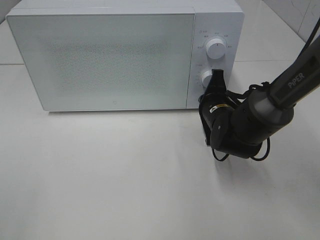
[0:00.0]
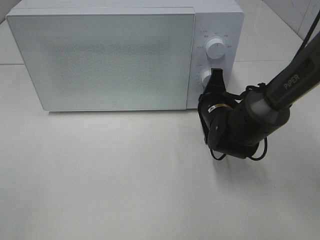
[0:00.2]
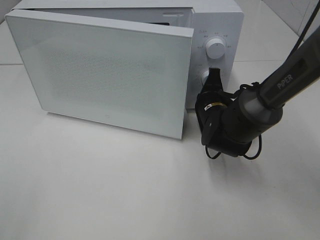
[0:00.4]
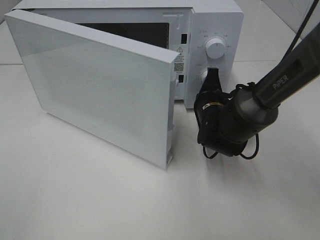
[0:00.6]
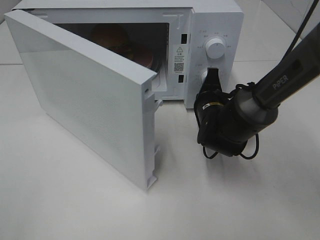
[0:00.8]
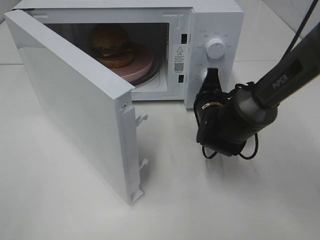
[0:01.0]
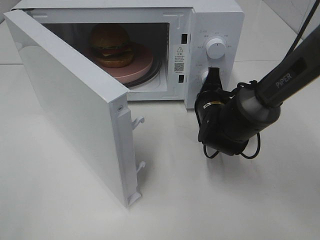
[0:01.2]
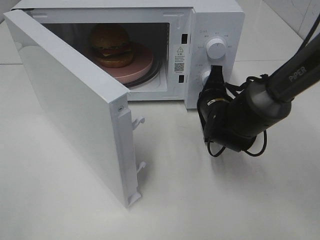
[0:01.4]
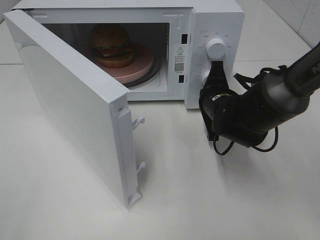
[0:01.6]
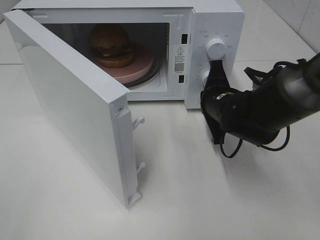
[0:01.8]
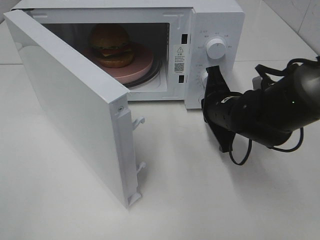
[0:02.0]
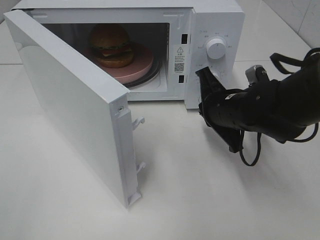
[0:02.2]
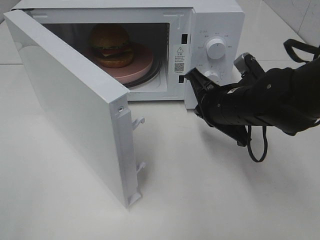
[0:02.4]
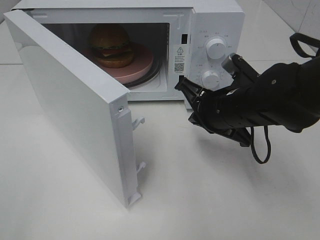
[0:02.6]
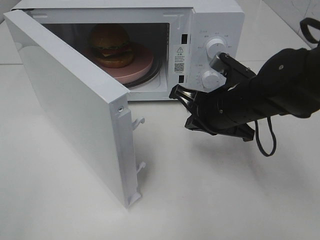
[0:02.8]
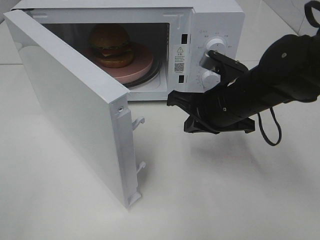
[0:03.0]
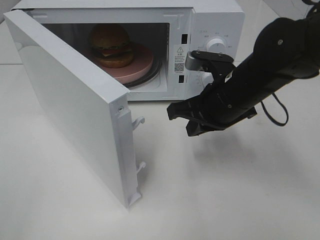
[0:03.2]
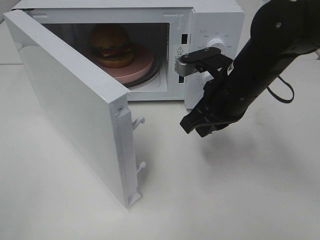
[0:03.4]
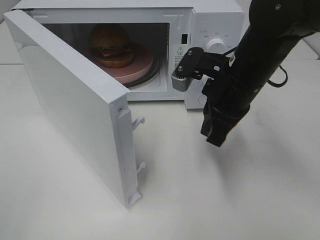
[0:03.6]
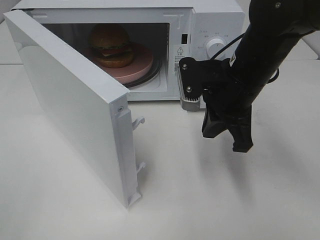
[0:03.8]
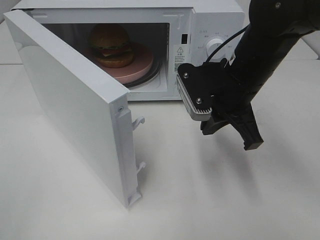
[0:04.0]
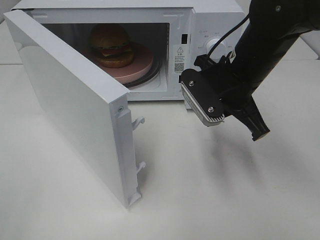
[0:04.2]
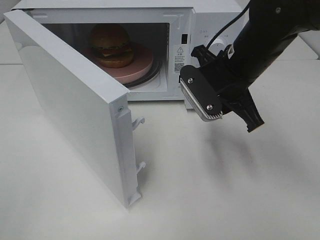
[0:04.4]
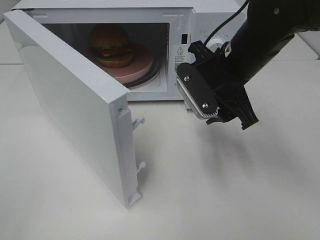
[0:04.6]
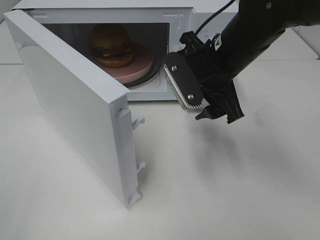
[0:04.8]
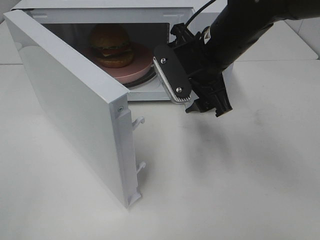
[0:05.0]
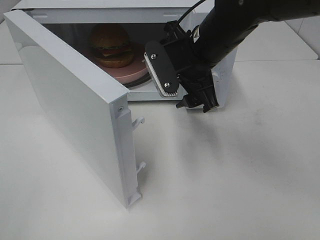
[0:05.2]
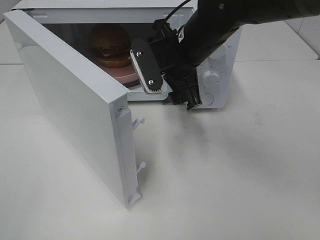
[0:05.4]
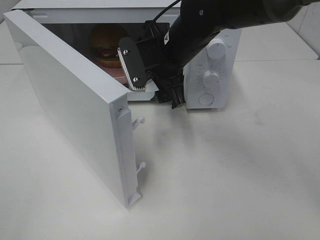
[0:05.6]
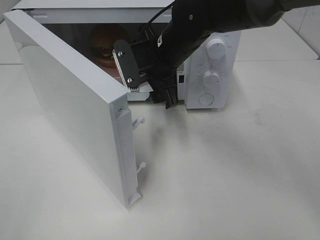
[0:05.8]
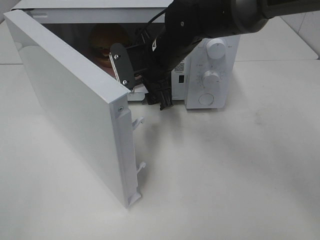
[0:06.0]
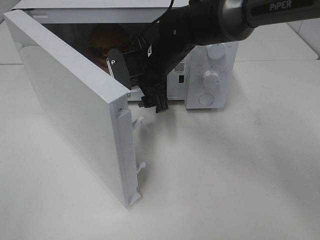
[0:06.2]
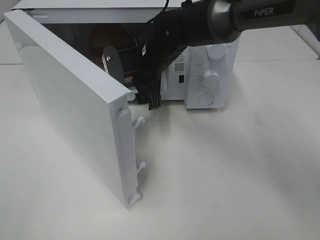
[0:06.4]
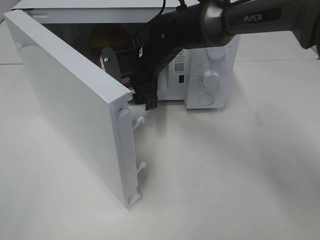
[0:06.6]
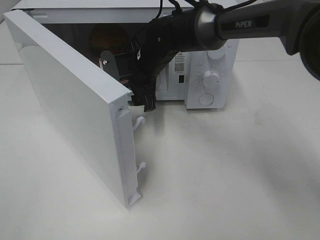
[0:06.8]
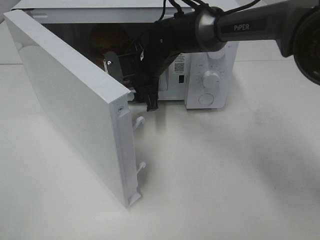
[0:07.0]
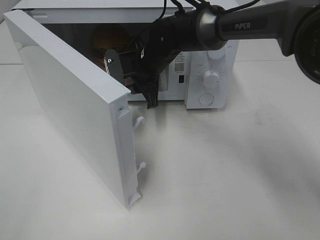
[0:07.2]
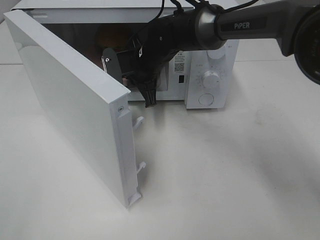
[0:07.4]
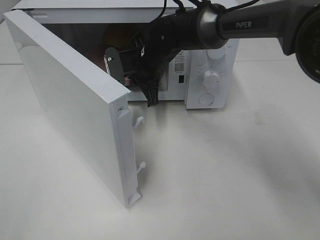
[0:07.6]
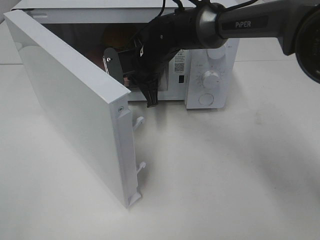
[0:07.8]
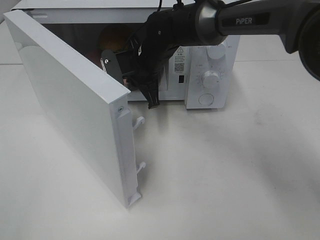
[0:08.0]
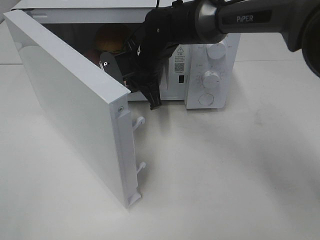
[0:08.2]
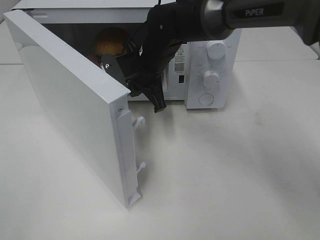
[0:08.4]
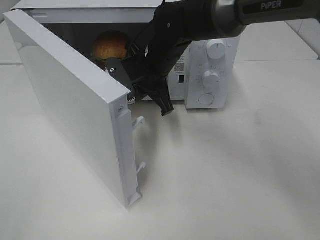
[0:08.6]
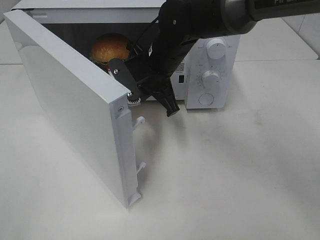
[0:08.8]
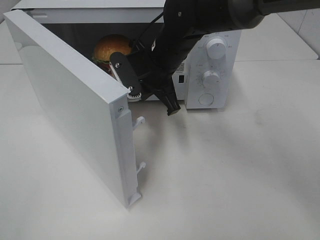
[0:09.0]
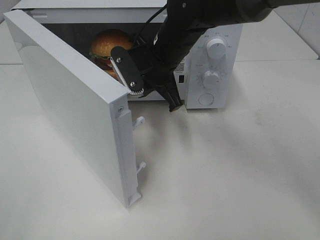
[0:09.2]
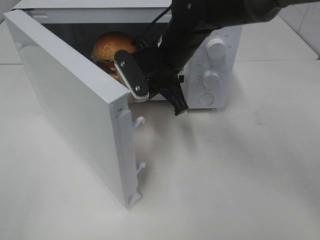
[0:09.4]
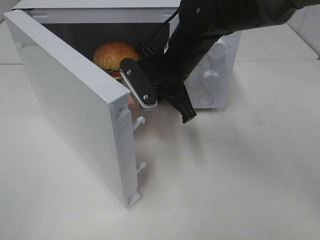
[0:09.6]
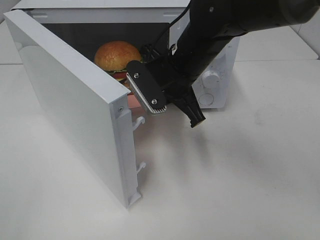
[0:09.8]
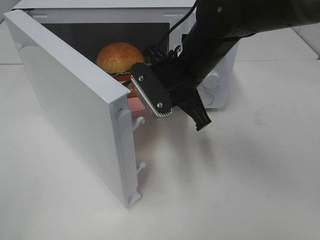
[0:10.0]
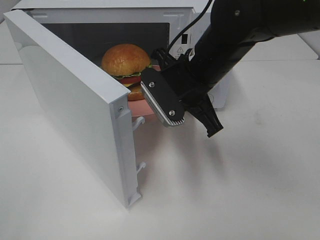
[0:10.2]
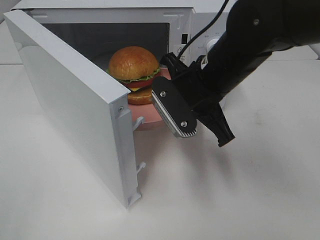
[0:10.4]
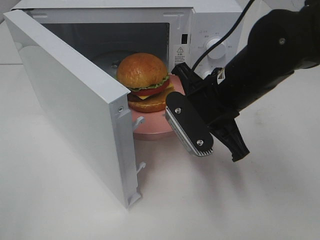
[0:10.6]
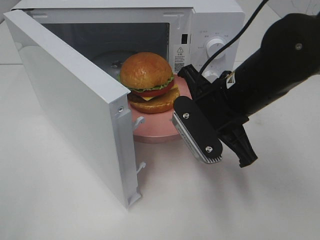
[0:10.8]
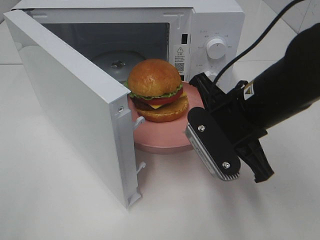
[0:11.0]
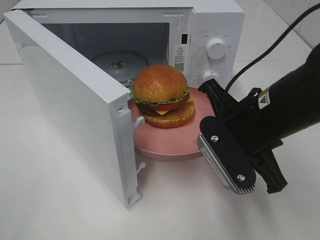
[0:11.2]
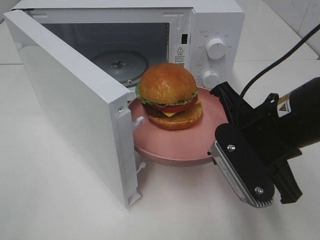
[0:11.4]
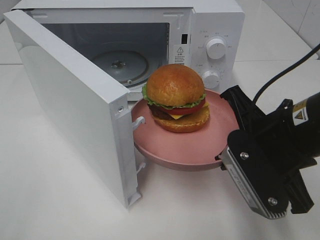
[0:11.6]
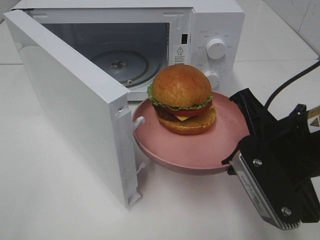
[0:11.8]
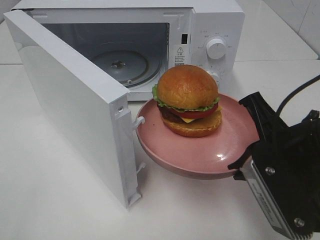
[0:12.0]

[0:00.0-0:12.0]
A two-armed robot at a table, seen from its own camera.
Task of the whole recording: Heat the burger.
Step, 0:01.8 to 0:07.4: Right hand: grab the plate with the hamburger.
0:01.6 to 0:03.0: The right gripper goes roughly 10 cm upward and backward.
0:03.0 to 0:04.4: The right gripper moves approximately 5 cm, and opens.
0:04.4 to 0:06.0: The right gripper travels to the left and forward by roughly 15 cm, and opens up.
0:06.0 to 0:07.6: The right gripper shifts roughly 5 cm forward, and closes its fingers.
0:07.6 to 0:09.0: The right gripper travels backward by roughly 5 cm.
0:09.0 to 0:10.4: The right gripper heads backward and to the right, covering approximately 10 cm.
0:10.4 to 0:12.0: The right gripper moves backward and to the right, roughly 15 cm.

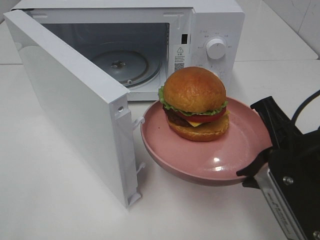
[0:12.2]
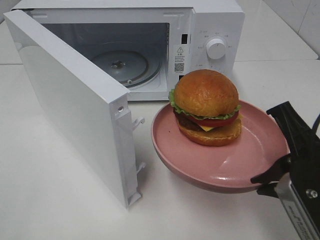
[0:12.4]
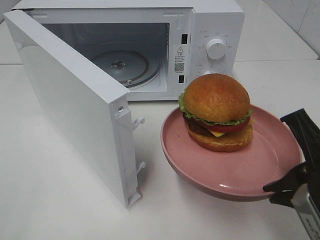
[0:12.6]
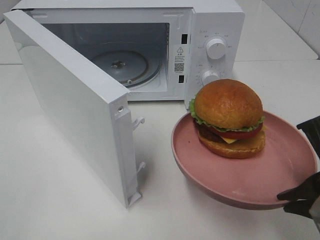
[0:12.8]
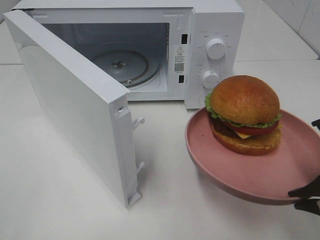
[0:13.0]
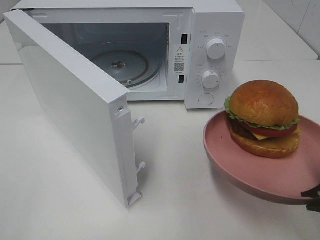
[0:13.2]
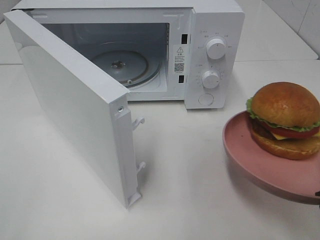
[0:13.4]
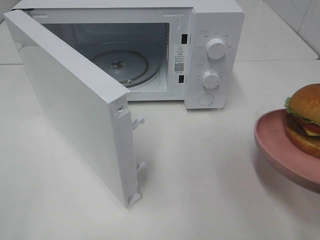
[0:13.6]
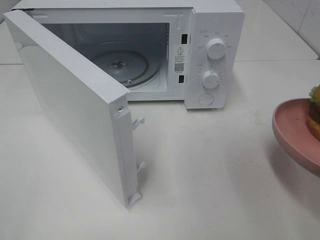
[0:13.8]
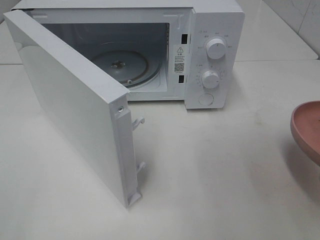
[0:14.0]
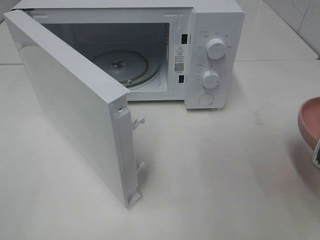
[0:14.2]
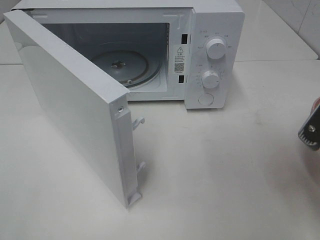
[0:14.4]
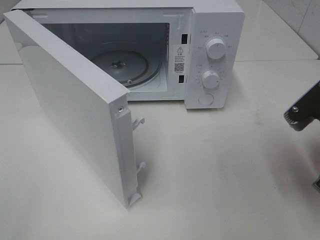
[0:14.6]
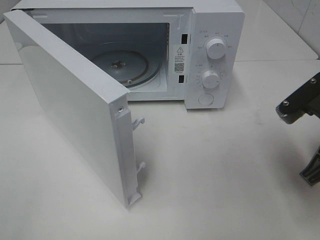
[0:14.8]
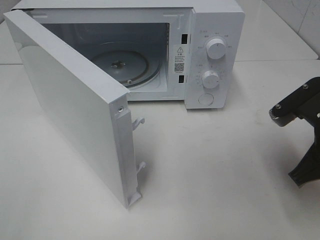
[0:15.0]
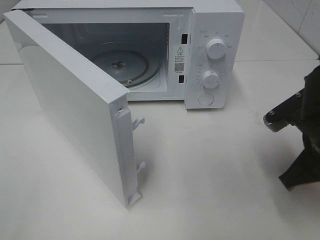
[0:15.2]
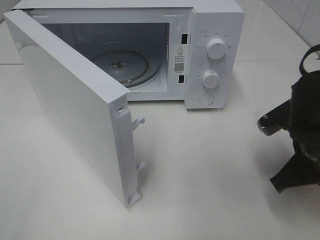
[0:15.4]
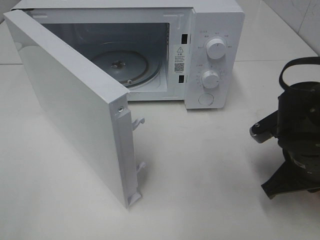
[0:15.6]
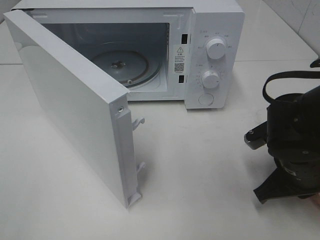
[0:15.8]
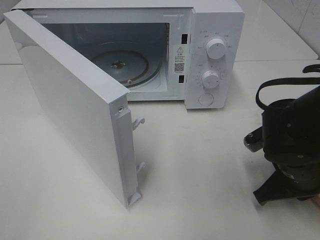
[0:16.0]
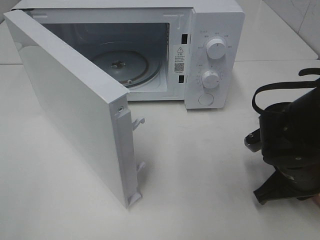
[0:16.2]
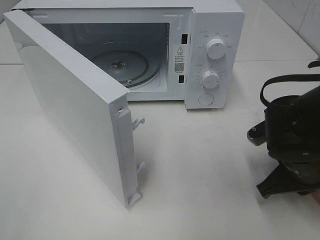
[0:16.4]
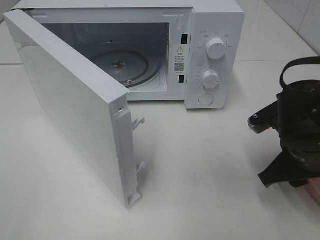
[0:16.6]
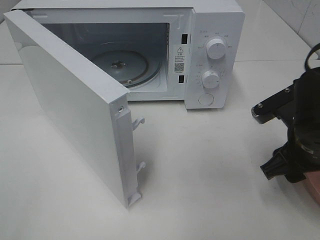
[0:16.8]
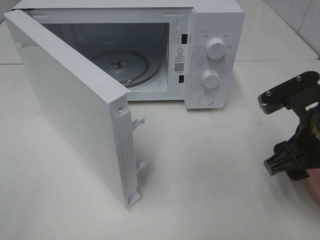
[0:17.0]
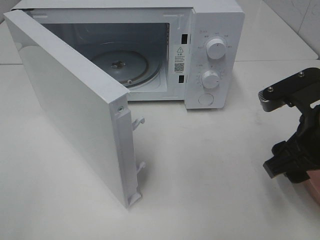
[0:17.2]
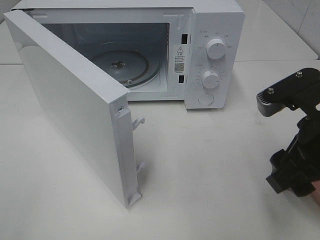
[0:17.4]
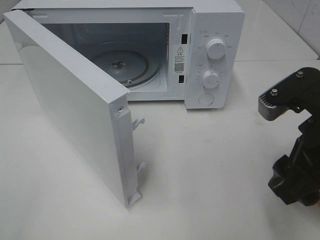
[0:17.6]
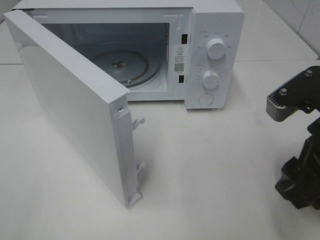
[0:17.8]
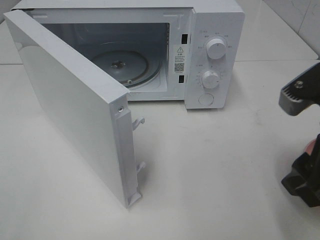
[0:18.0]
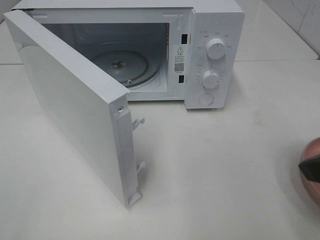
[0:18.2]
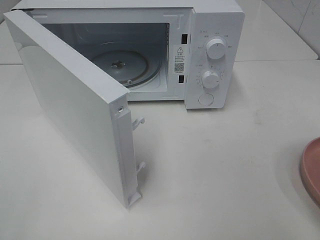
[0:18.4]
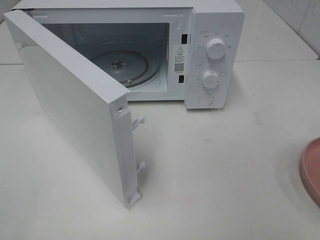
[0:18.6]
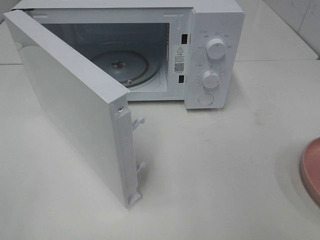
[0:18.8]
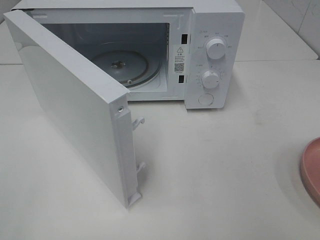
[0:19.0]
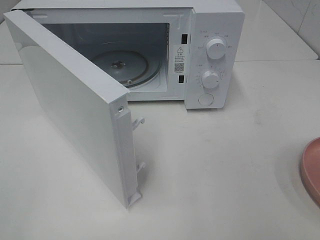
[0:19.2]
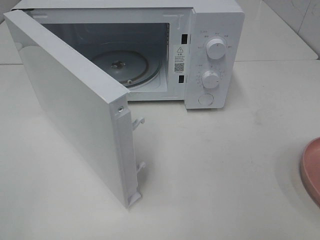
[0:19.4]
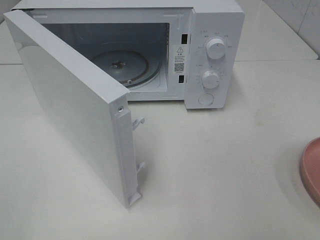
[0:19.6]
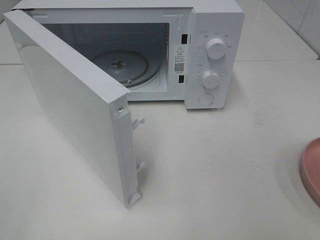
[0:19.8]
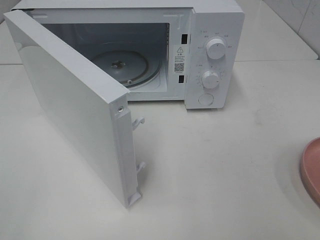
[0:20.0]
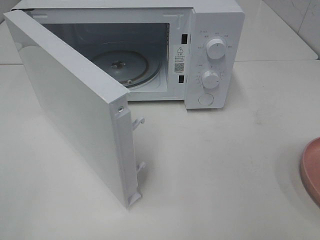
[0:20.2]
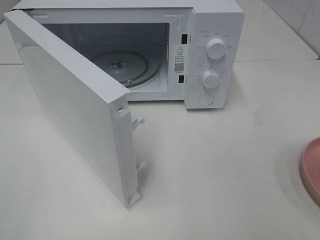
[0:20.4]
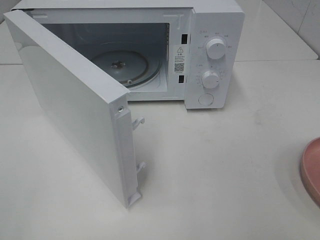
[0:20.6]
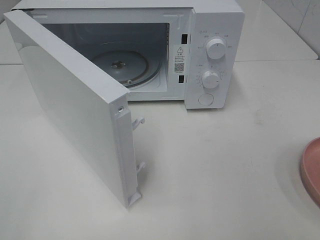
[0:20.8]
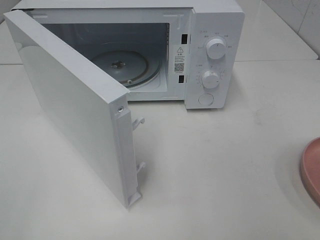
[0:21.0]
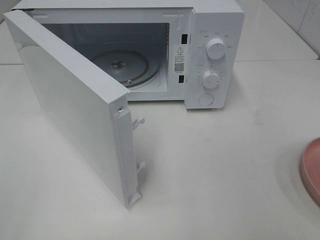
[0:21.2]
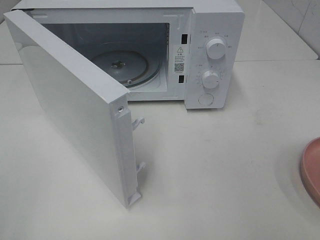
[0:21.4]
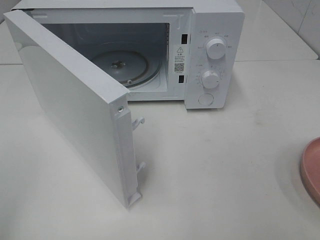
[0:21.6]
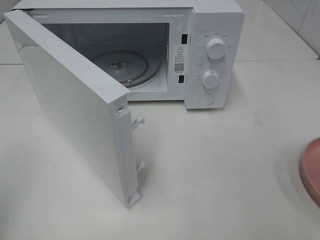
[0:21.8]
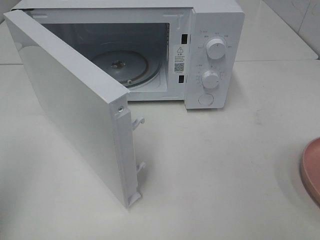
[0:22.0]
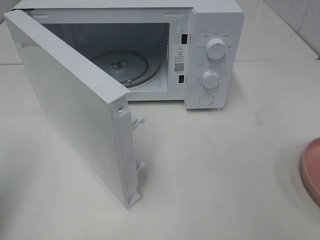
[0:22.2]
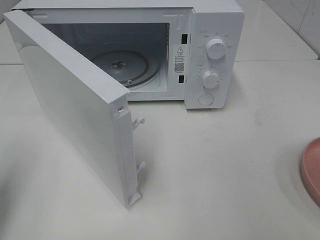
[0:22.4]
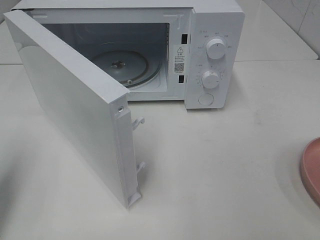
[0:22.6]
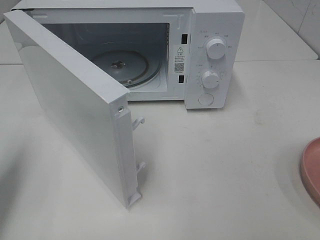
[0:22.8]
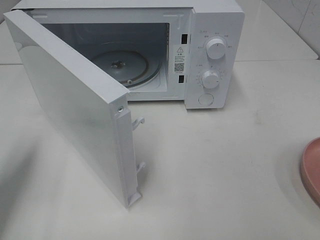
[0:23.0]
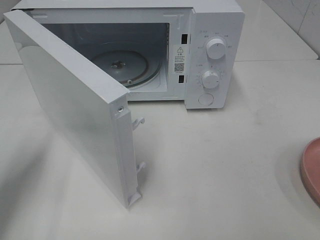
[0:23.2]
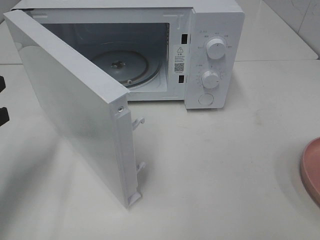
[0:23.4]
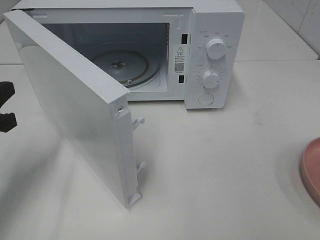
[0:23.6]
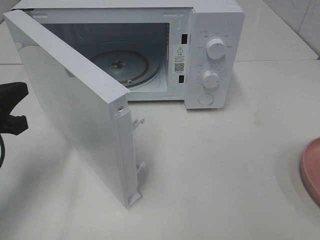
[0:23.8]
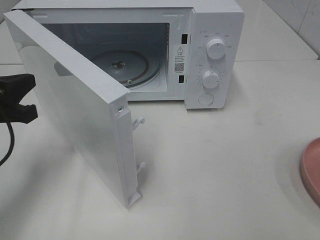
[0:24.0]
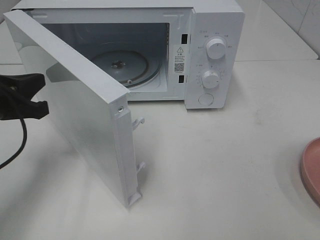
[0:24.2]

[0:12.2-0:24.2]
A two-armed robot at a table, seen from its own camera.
Task of the whole recording: Heat the burger.
Step, 0:12.2 to 0:16.4: Right hand: place the plate on the table.
0:12.2 to 0:13.8: The right gripper shifts about 5 cm to the right.
0:13.8 to 0:15.2: The right gripper heads forward and downward, covering roughly 10 cm.
0:15.2 to 0:16.6: The right gripper opens its fingers.
0:16.6 to 0:18.2: The right gripper moves upward and backward, some 15 cm.
0:18.2 to 0:19.8: The right gripper moves backward and to the right, approximately 15 cm.
0:19.8 to 0:21.2: Neither gripper changes place.
0:21.2 to 0:22.6: The left gripper moves forward, approximately 15 cm, and closes.
0:22.6 to 0:24.2: The left gripper moves forward, to the right and downward, some 10 cm.
